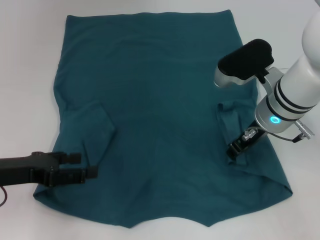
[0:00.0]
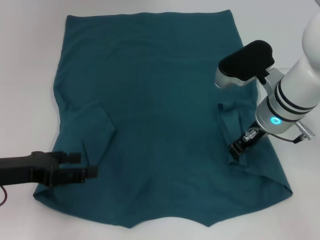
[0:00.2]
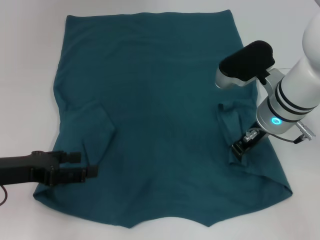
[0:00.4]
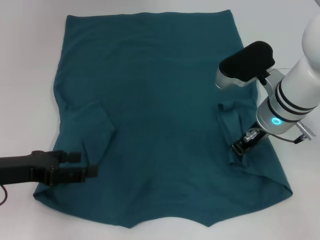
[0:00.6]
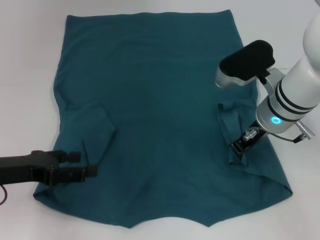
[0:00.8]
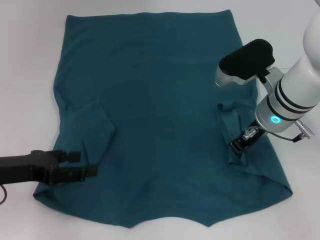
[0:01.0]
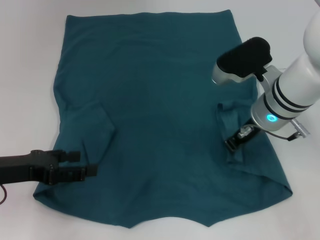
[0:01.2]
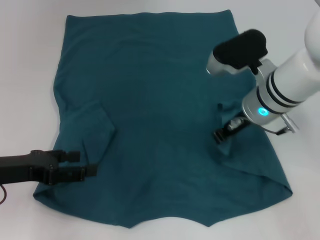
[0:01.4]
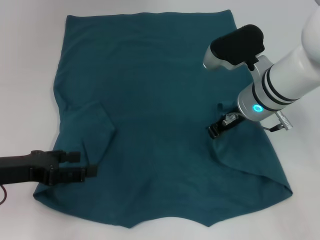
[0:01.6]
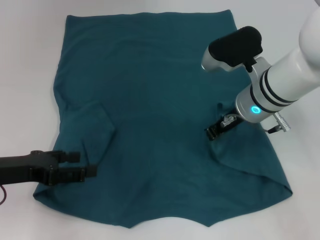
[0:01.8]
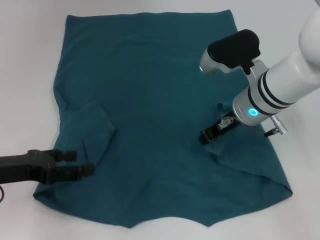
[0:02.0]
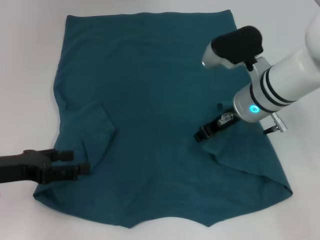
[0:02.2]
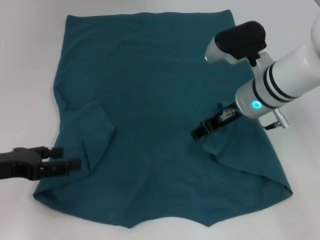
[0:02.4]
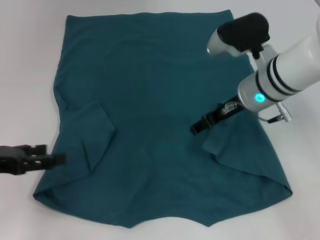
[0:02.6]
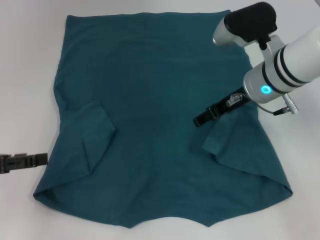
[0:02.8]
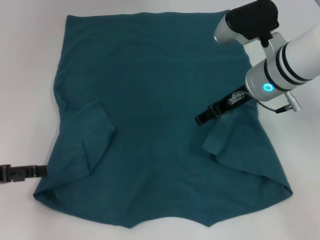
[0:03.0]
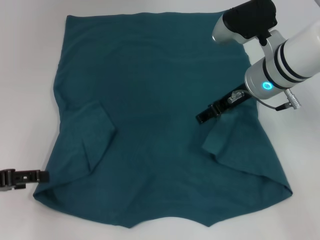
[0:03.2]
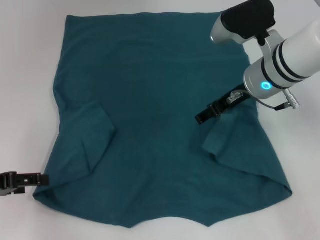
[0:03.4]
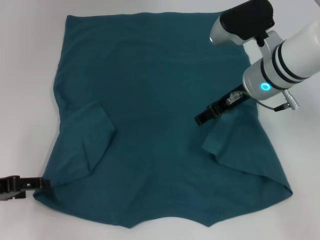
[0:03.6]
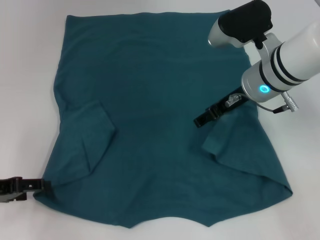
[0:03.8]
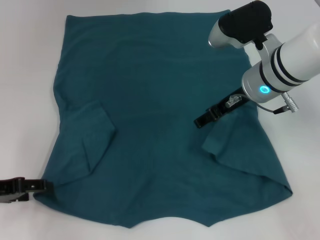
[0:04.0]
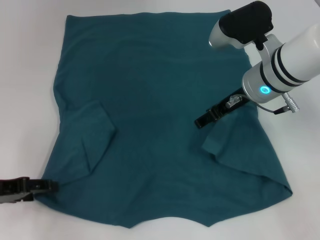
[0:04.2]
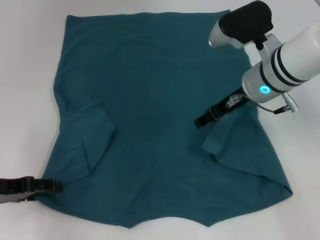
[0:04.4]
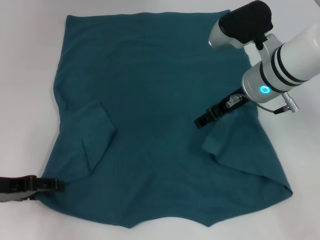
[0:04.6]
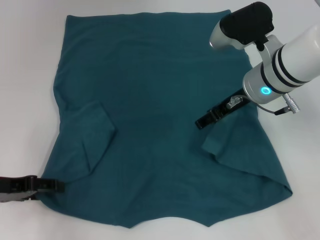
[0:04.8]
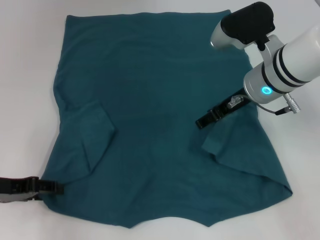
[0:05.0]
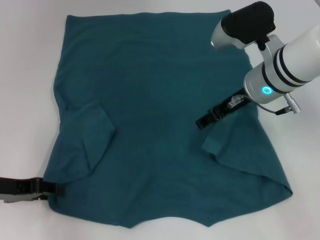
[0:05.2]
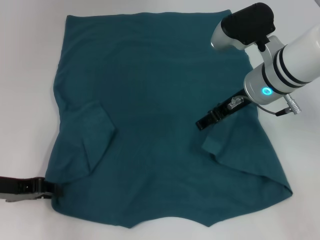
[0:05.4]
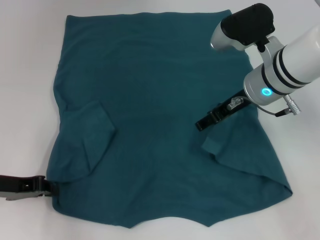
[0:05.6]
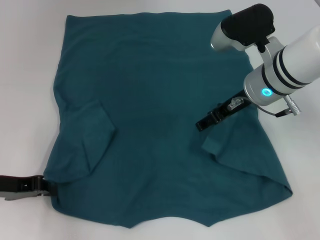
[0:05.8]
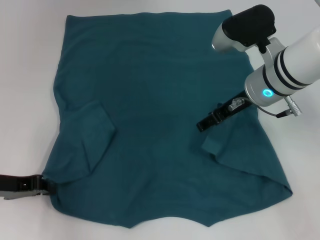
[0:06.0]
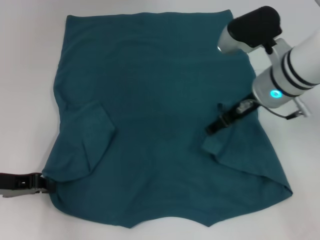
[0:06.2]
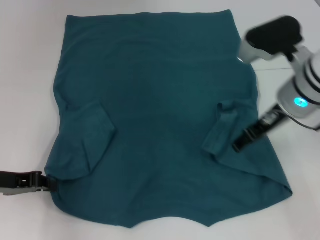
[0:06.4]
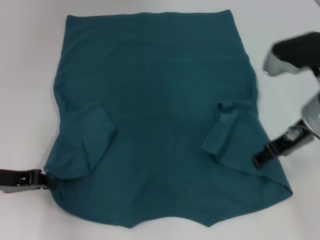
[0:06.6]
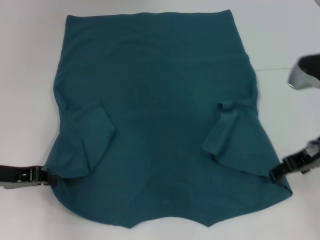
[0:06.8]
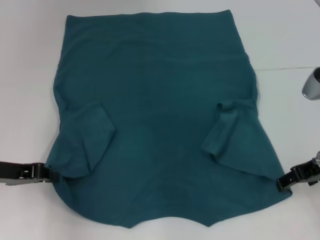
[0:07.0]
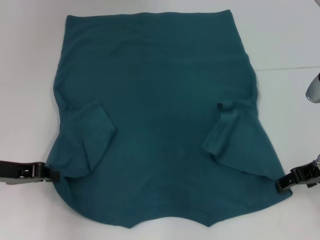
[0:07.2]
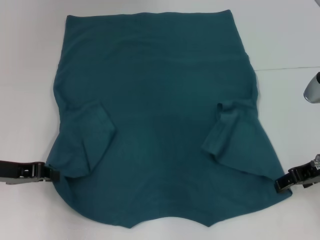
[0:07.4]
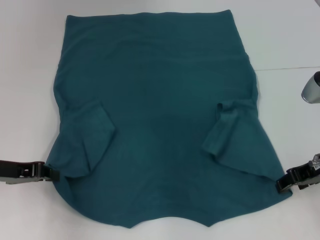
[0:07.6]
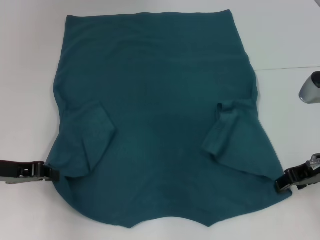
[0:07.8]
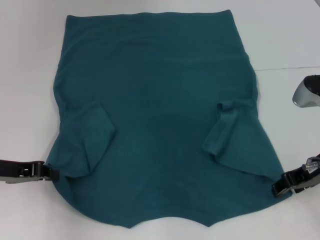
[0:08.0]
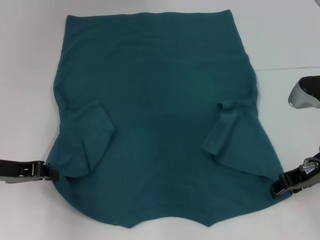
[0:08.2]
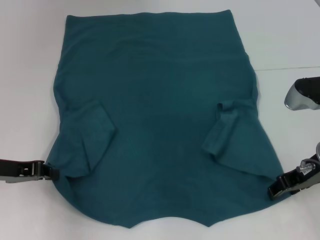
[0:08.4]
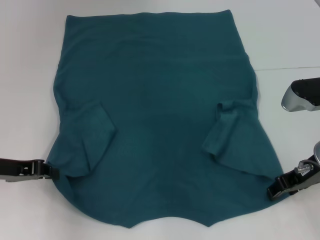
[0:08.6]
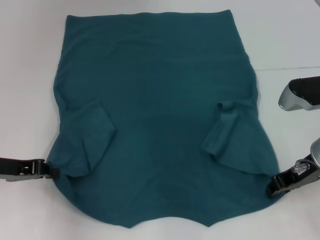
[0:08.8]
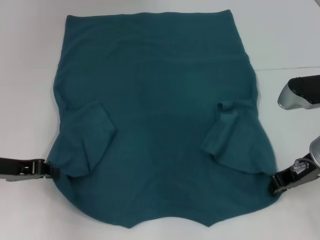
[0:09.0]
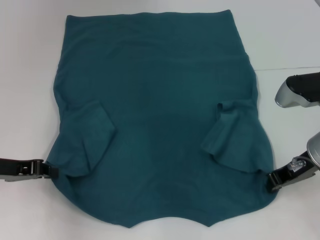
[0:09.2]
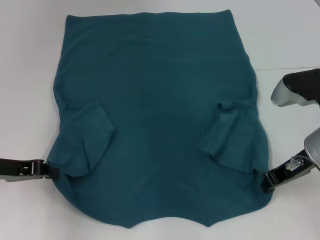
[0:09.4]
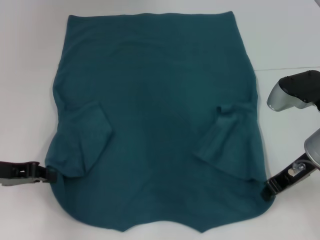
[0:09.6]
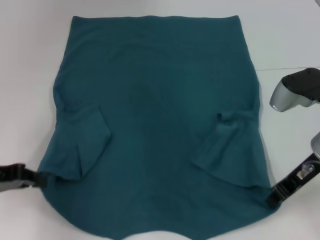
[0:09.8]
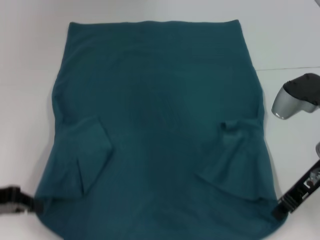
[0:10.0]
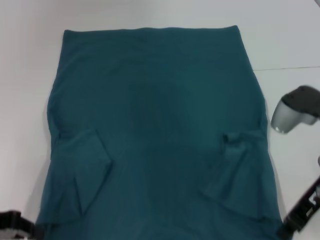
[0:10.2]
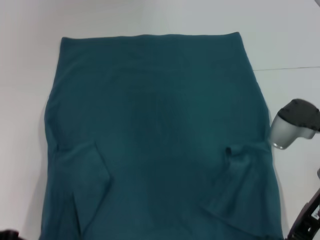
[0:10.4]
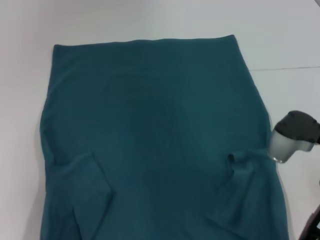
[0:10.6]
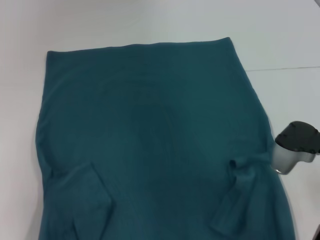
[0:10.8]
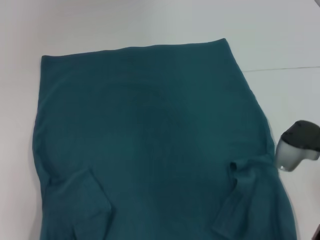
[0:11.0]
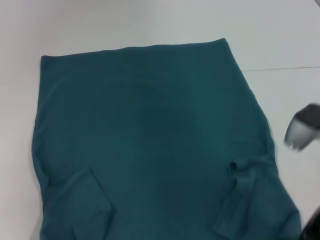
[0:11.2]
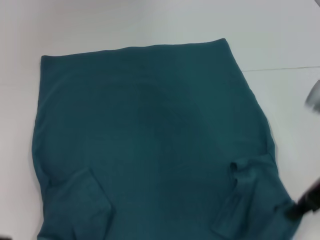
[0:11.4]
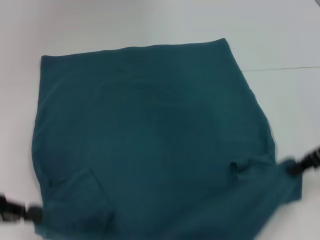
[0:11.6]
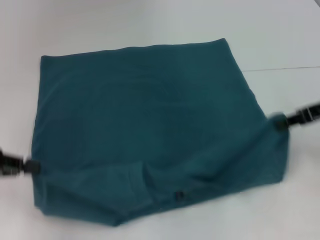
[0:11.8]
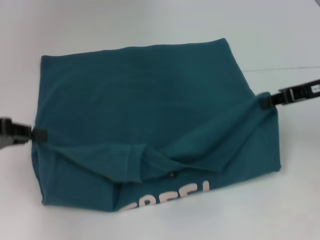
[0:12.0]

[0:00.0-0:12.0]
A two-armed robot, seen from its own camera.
Step, 0:00.0 to 0:02.8: Fold the bottom right sleeve to the right.
Step, 0:03.0 to 0:05.8: Grab the bottom left corner with your left hand.
Step, 0:06.0 to 0:09.0: Grab the bottom right corner with your right hand.
0:00.0 to 0:01.6: The right gripper closes.
0:01.6 to 0:03.0: The right gripper opens its fingers; the left gripper shifts by roughly 5 cm.
0:03.0 to 0:04.4: The grippers make only small movements.
0:04.4 to 0:06.0: The left gripper closes.
0:06.0 to 0:07.6: The right gripper heads to the right and backward, covering roughly 15 cm.
0:07.6 to 0:09.0: The right gripper closes up.
0:09.0 to 0:10.4: The left gripper is displaced backward by about 5 cm.
0:10.4 to 0:12.0: The left gripper is displaced upward and forward by about 10 cm. The right gripper travels forward, to the right and upward by approximately 10 cm.

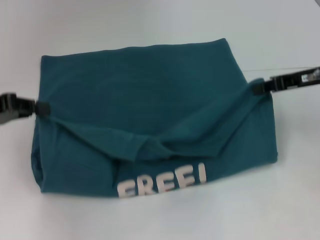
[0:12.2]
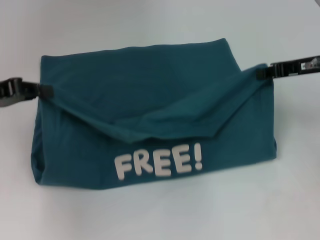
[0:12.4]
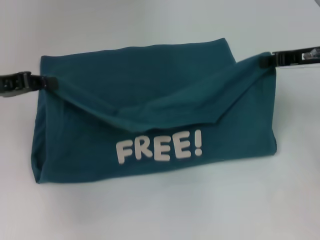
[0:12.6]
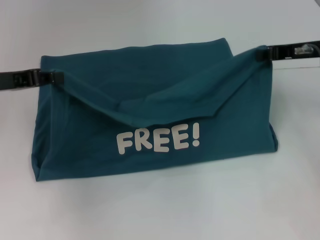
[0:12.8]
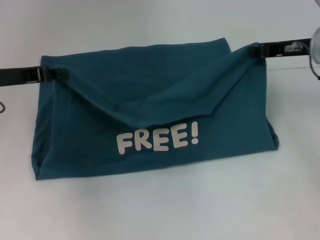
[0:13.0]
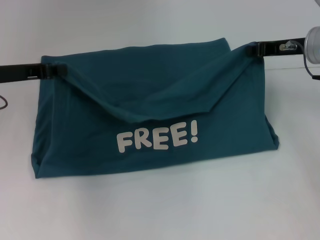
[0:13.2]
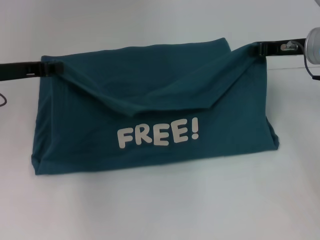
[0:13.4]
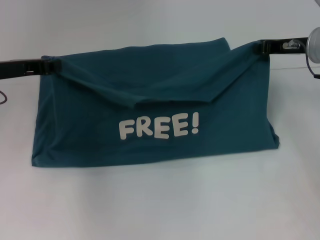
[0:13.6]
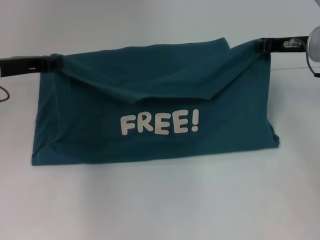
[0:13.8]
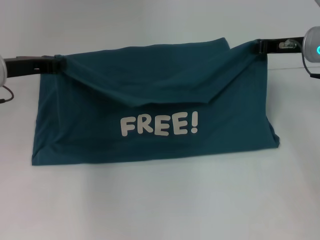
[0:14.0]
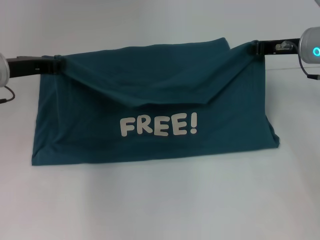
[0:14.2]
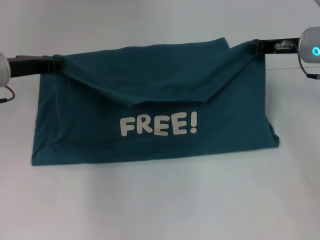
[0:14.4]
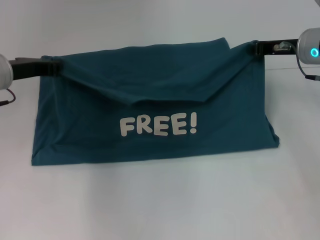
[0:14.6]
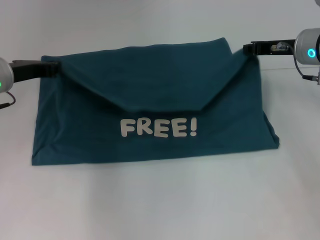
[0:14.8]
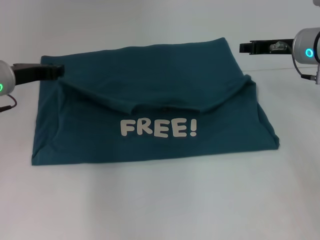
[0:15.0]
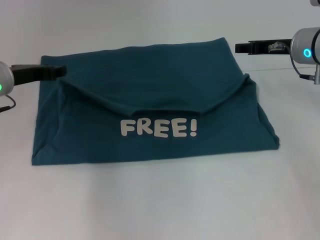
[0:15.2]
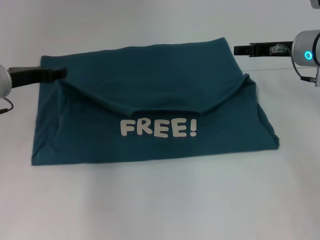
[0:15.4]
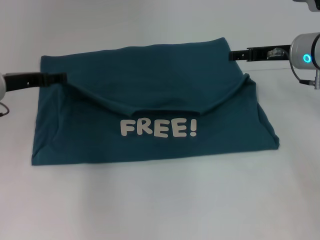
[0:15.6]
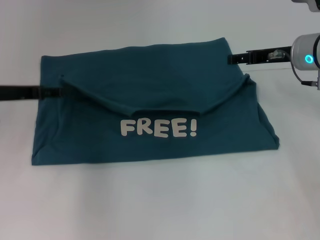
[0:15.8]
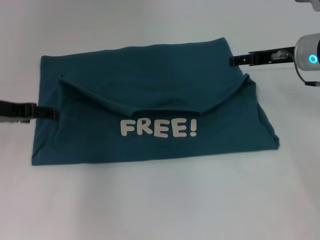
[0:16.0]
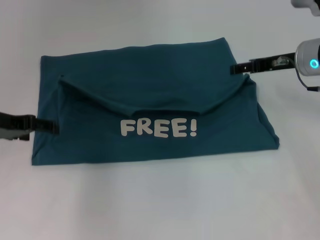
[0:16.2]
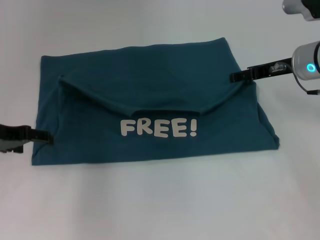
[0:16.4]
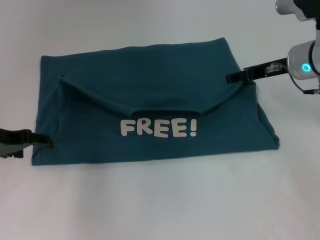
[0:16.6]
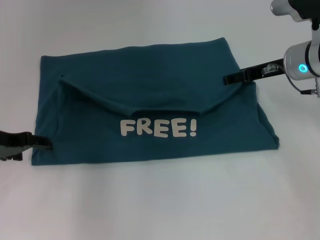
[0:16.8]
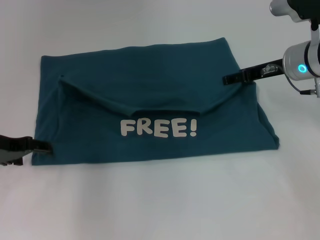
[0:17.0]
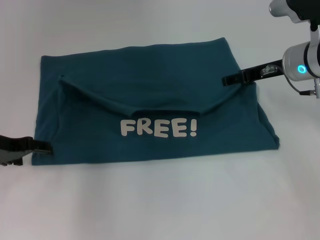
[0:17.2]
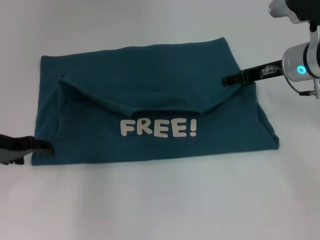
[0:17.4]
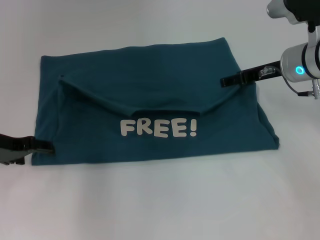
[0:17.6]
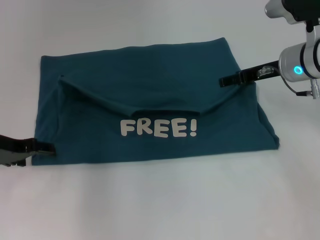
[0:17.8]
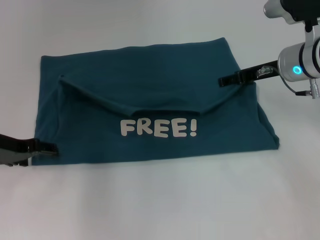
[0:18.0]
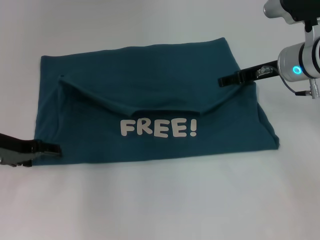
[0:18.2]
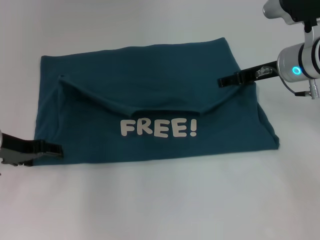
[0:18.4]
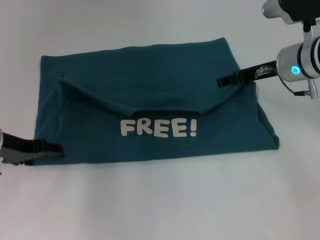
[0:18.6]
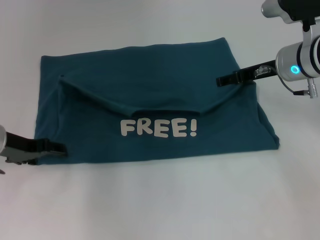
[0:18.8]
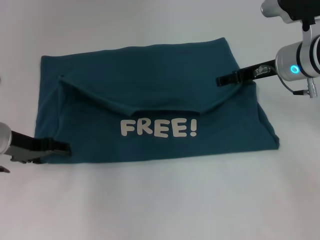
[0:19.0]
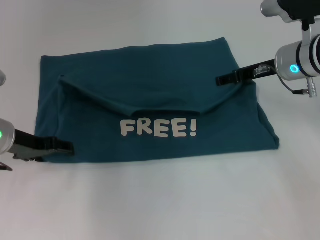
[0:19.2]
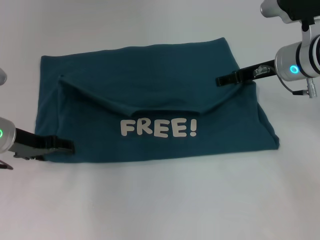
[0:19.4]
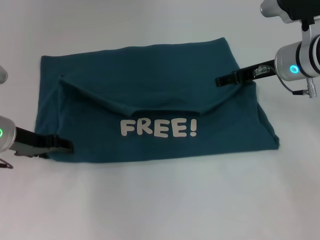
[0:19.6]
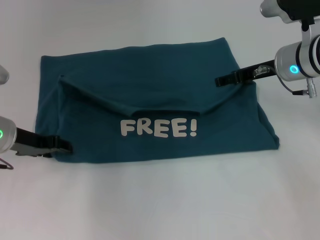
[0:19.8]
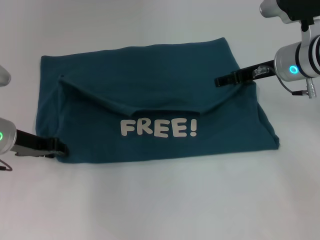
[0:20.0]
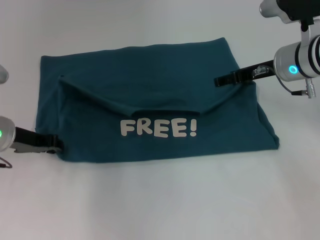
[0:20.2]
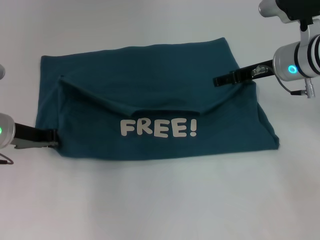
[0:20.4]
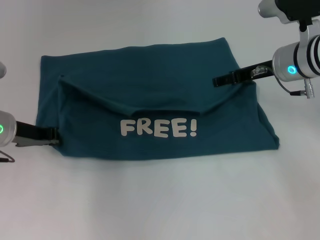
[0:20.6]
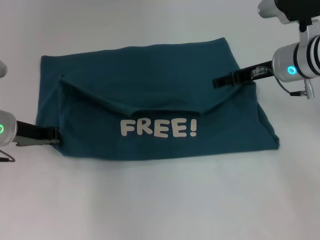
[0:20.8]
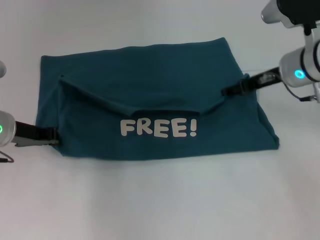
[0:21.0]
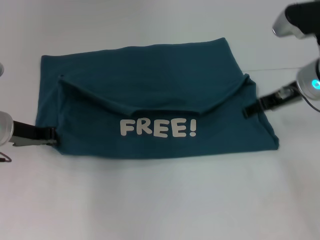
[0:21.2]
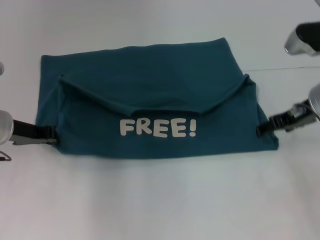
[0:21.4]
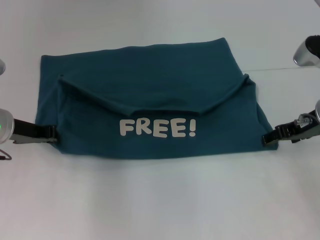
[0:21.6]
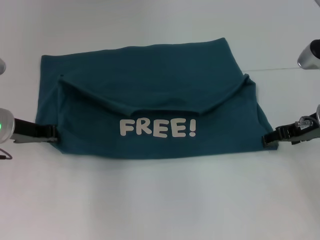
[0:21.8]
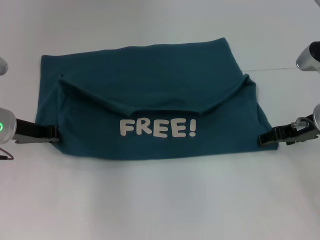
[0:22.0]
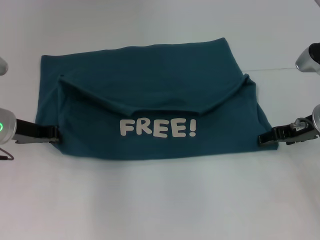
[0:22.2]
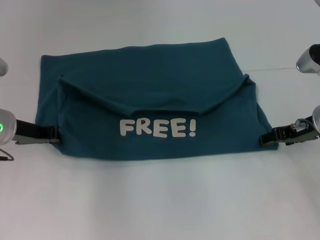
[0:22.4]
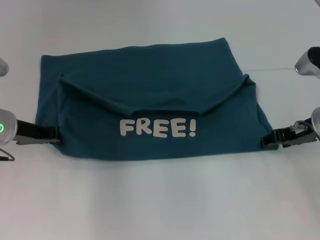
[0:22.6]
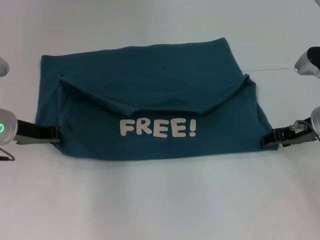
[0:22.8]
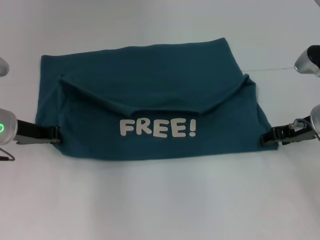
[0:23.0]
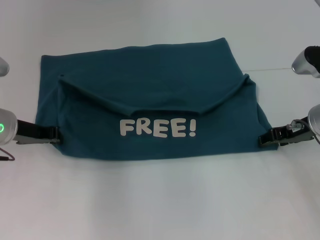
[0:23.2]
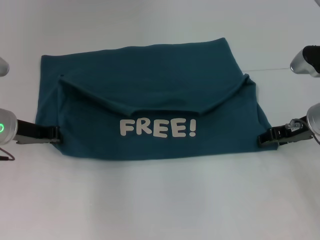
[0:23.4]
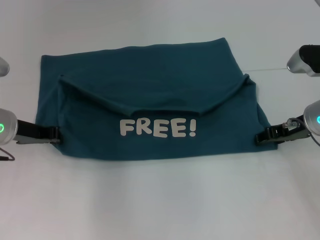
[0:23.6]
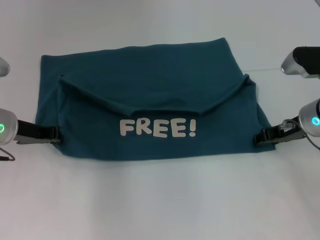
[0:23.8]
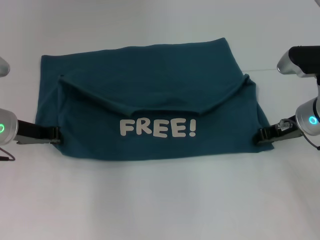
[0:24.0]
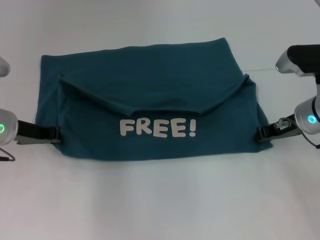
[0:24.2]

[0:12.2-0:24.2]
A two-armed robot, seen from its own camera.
Step, 0:12.2 to 0:15.4: Fold the clothes to the left.
Step, 0:12.2 to 0:15.4: Fold the clothes to the right.
0:12.2 to 0:13.8: The right gripper shifts approximately 5 cm forward. Meanwhile the left gripper heads forward and to the right, covering approximately 10 cm.
0:13.8 to 0:15.2: The left gripper opens up.
0:15.2 to 0:16.6: The right gripper opens its fingers. Meanwhile the left gripper is displaced backward by about 5 cm, and opens up.
0:16.6 to 0:19.8: The grippers make only small movements.
0:19.8 to 0:21.2: The left gripper closes up.
0:21.2 to 0:22.6: The right gripper travels downward by roughly 5 cm.
0:22.6 to 0:24.2: The right gripper closes up.
